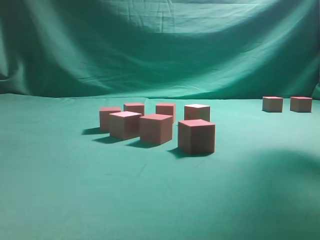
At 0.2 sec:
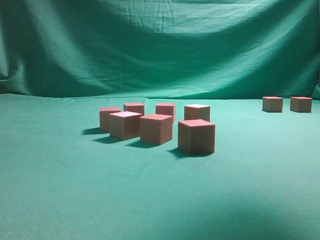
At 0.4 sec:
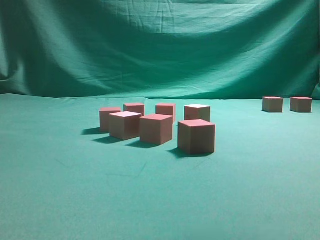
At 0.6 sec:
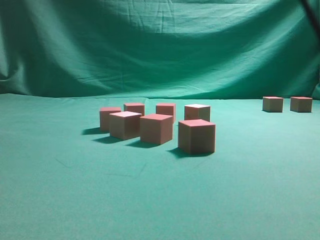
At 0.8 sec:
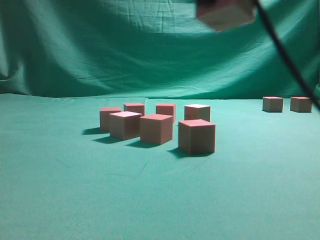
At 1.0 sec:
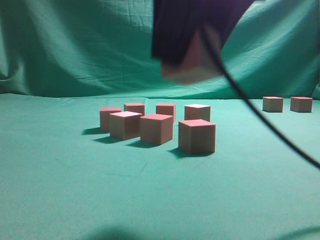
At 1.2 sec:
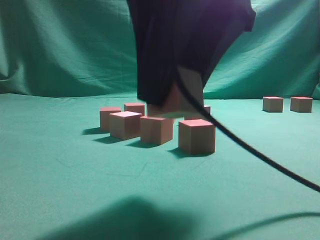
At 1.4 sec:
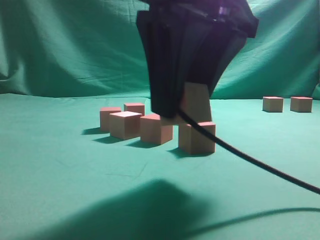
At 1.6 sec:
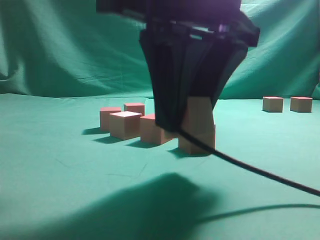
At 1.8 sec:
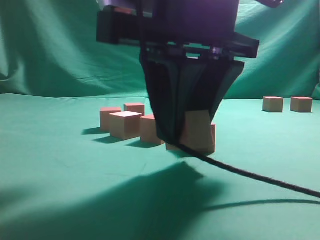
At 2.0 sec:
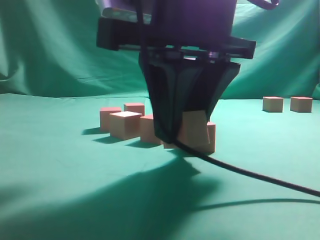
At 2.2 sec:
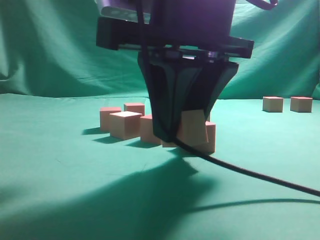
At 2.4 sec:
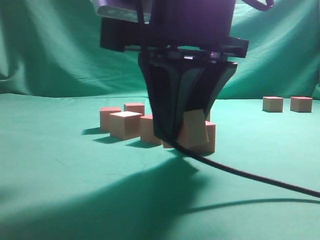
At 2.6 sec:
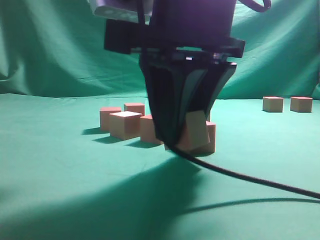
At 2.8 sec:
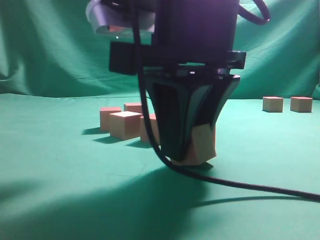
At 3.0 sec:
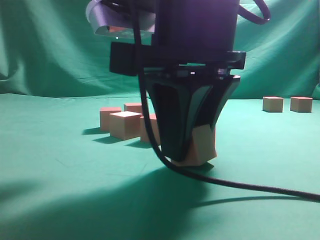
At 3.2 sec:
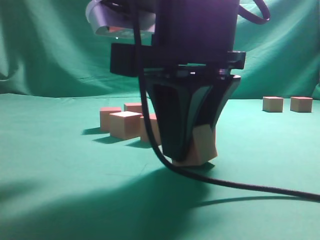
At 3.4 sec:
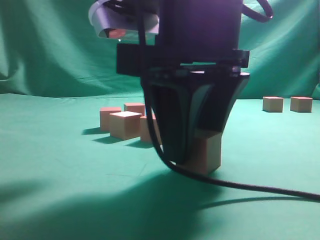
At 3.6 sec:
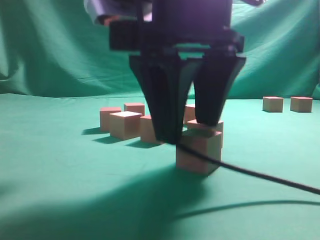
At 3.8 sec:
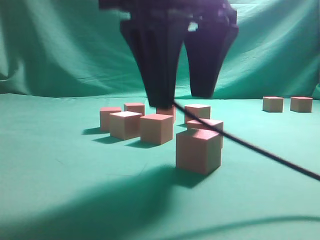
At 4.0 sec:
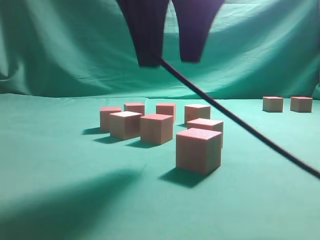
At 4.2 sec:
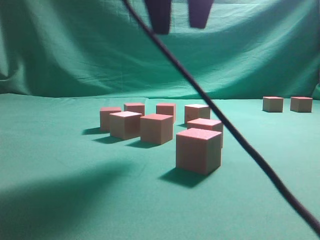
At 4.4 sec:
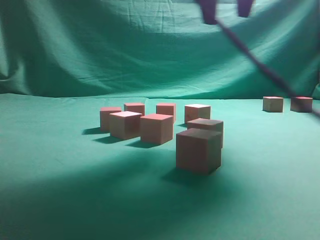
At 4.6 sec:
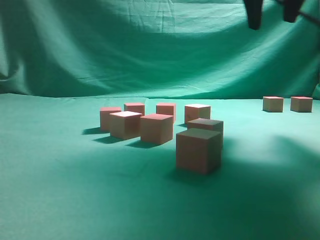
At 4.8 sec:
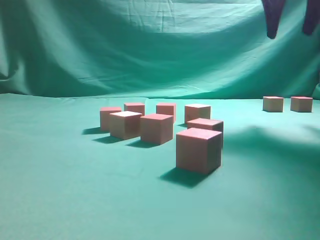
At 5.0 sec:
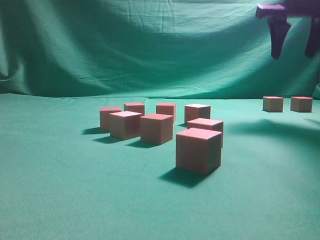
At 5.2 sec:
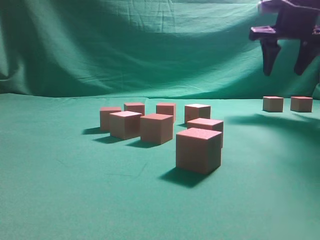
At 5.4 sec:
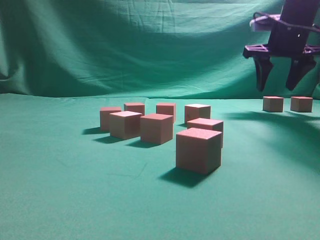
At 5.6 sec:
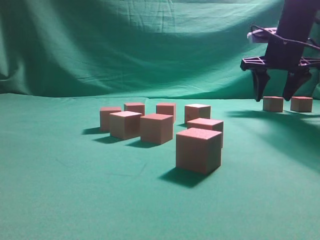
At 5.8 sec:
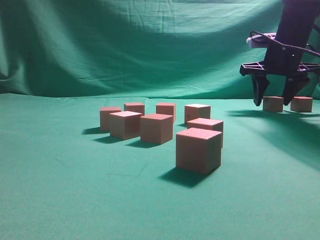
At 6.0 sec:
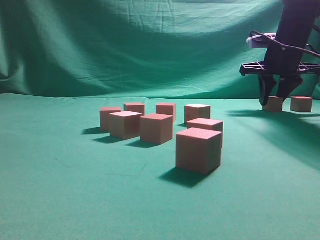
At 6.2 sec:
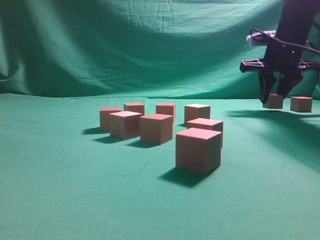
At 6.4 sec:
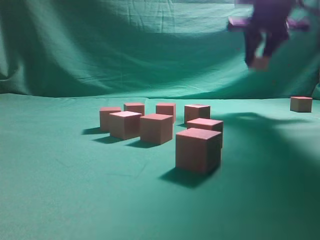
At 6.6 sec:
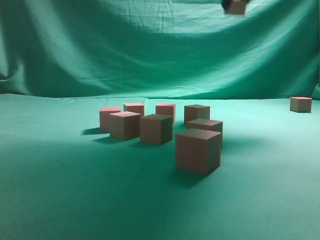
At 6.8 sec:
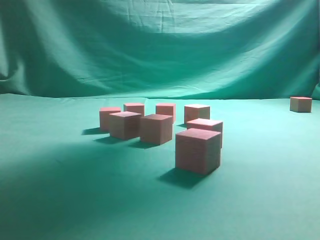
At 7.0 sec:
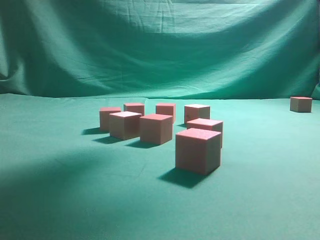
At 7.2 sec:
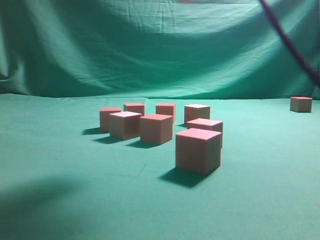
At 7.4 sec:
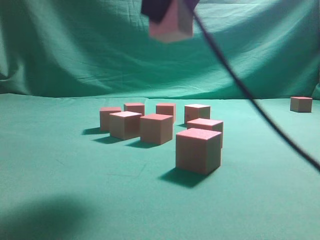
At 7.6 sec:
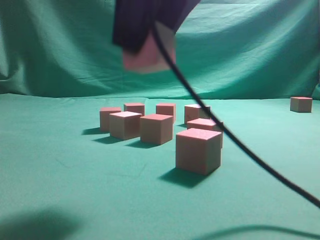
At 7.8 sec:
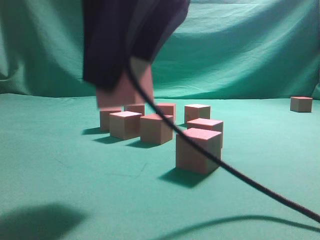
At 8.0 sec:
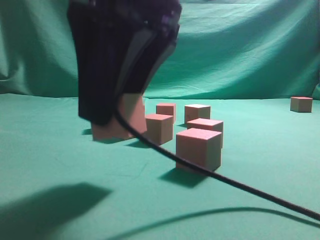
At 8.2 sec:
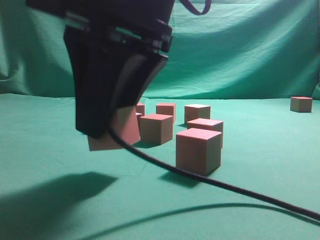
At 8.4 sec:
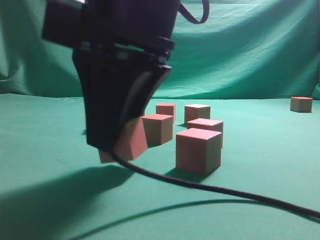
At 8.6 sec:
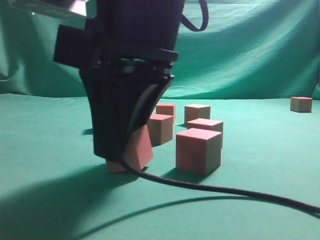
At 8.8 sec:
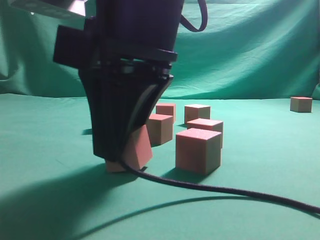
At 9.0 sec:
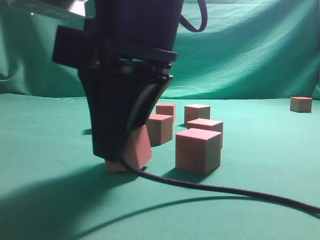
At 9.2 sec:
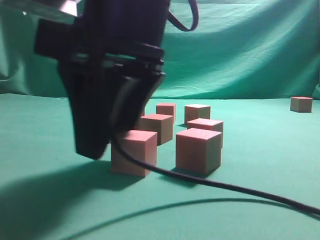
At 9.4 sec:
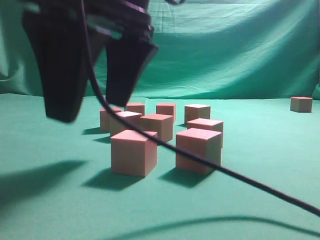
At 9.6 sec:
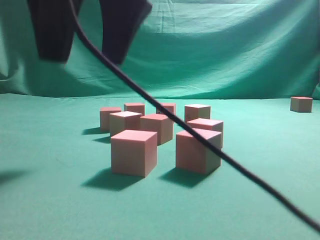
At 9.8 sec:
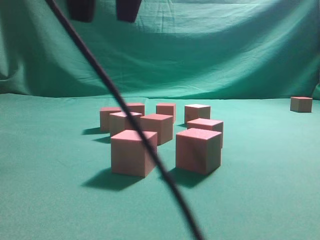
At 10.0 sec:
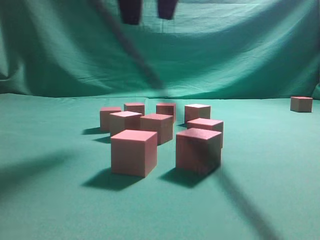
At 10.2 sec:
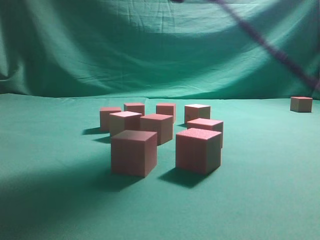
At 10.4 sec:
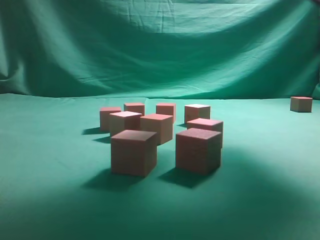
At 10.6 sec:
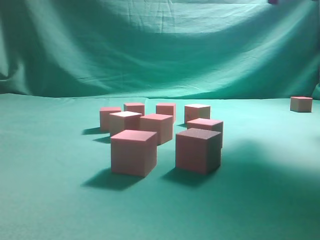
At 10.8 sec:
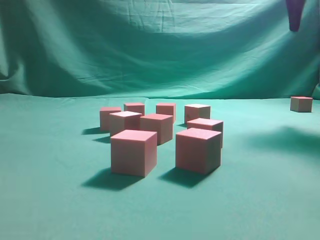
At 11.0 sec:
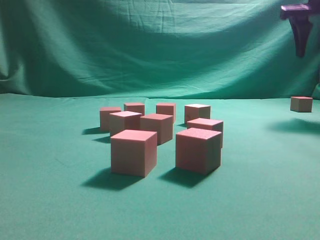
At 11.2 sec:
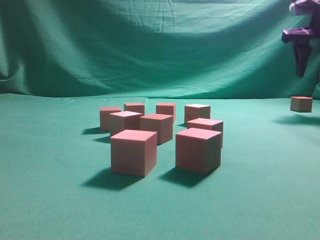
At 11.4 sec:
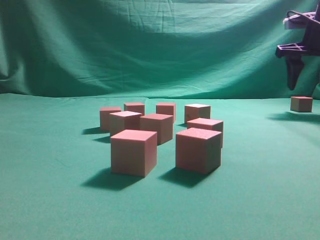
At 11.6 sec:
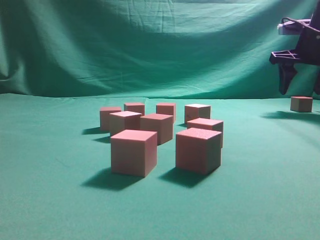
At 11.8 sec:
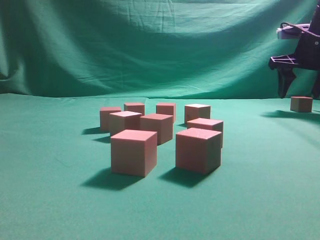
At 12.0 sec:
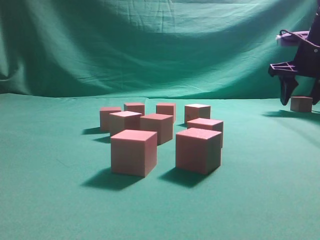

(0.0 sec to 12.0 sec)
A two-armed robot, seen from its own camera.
Task of the whole recording: pick up the multiple cubes in two columns one by one and place them in another position on the table.
Step, 0.0 sec - 3.8 sec: Place the block at the correct position to assemble the letter S.
Step, 4.0 sec - 6.2 sec: Pick up the block on the table.
Step, 6.4 sec - 9.4 sec: Place the block at the correct position to assemble the letter S.
0.0 sec - 1.6 sec: The right gripper shifts some 30 cm downward, to the left and backward.
3.0 sec - 4.4 sec: The right gripper moves upward, forward and to the right, approximately 20 cm.
4.4 sec - 6.0 sec: The right gripper goes roughly 25 cm forward, downward and to the right.
6.0 sec - 7.6 sec: The right gripper moves backward and to the left, approximately 40 cm.
7.6 sec - 9.0 sec: The right gripper travels downward by roughly 10 cm.
9.0 sec - 10.4 sec: The right gripper goes roughly 30 cm upward, to the right and forward, and opens up.
10.4 sec - 12.0 sec: The right gripper shifts about 30 cm downward, forward and to the right.

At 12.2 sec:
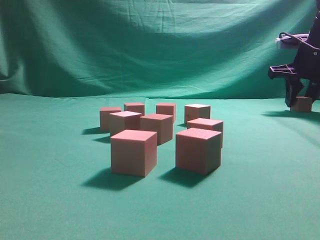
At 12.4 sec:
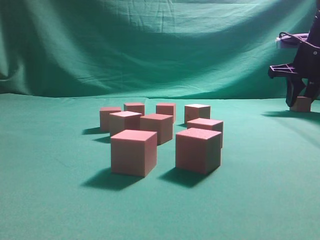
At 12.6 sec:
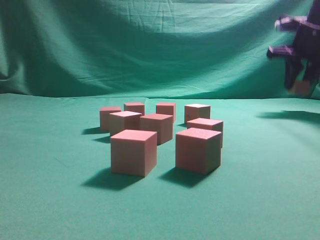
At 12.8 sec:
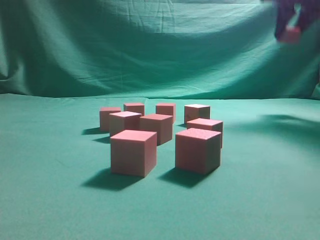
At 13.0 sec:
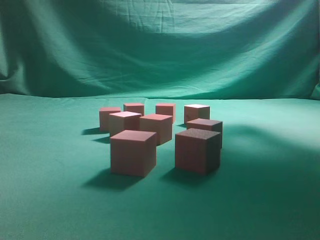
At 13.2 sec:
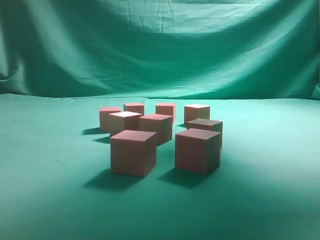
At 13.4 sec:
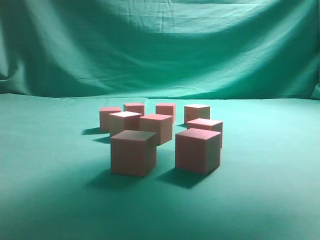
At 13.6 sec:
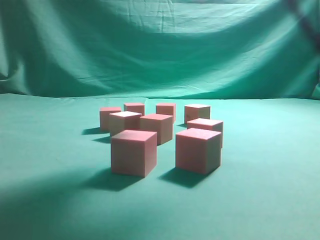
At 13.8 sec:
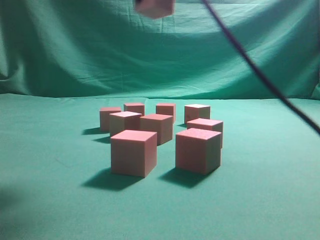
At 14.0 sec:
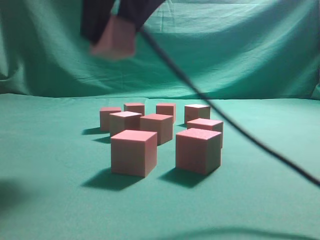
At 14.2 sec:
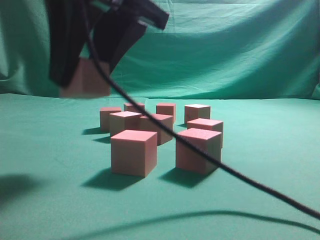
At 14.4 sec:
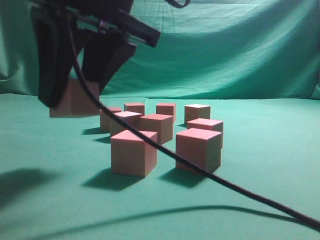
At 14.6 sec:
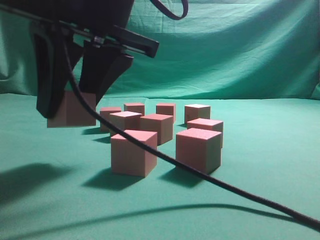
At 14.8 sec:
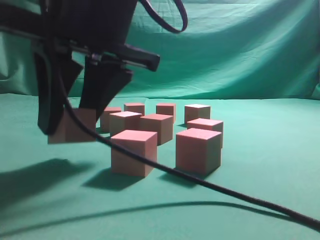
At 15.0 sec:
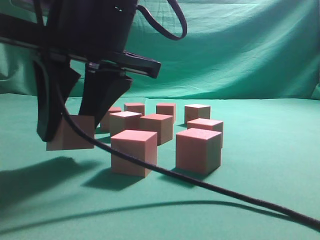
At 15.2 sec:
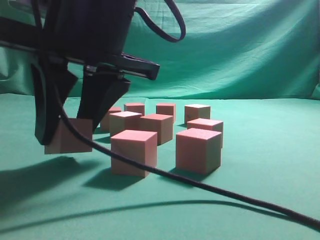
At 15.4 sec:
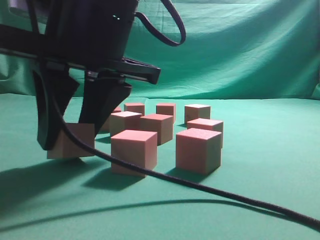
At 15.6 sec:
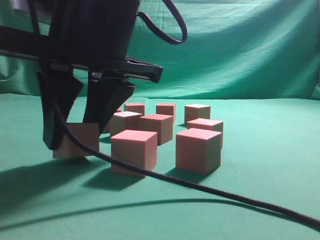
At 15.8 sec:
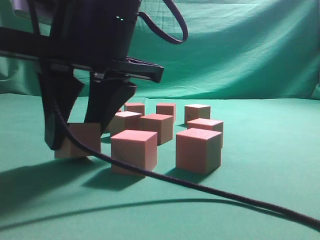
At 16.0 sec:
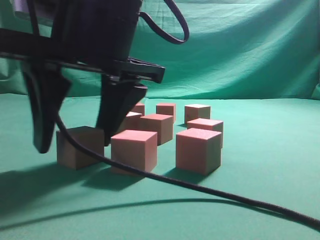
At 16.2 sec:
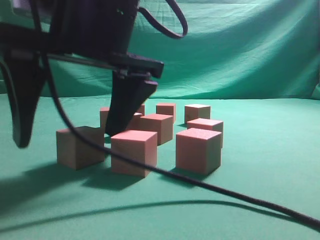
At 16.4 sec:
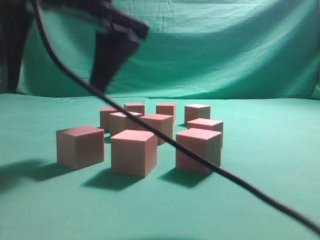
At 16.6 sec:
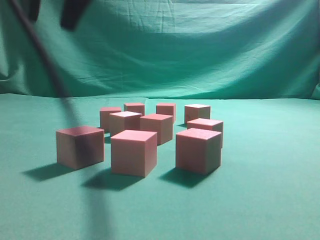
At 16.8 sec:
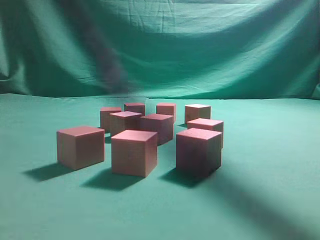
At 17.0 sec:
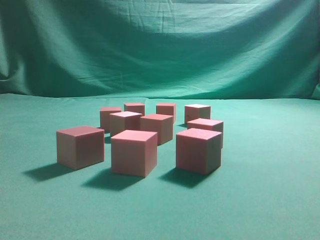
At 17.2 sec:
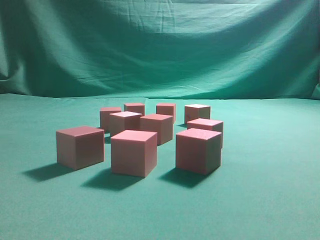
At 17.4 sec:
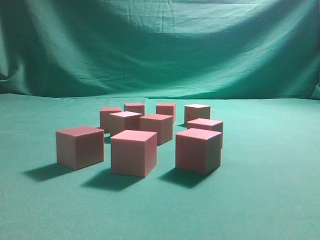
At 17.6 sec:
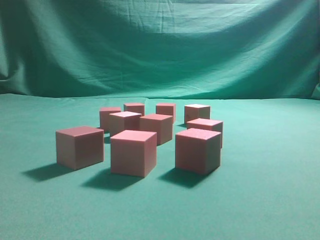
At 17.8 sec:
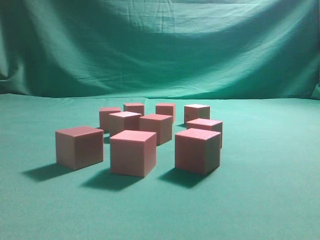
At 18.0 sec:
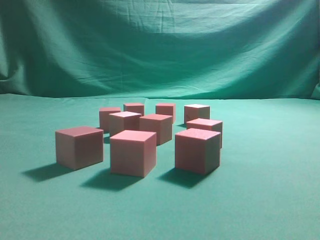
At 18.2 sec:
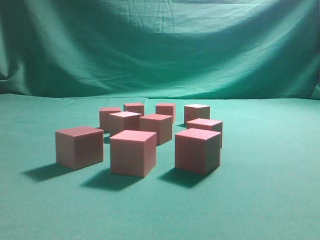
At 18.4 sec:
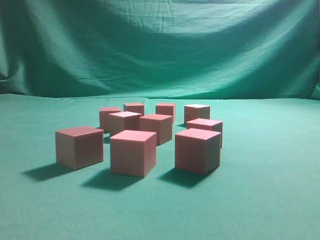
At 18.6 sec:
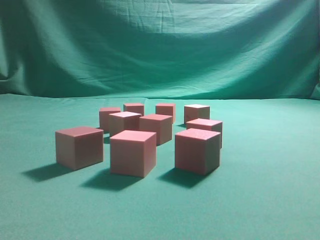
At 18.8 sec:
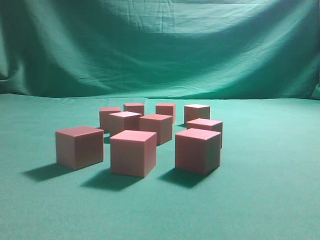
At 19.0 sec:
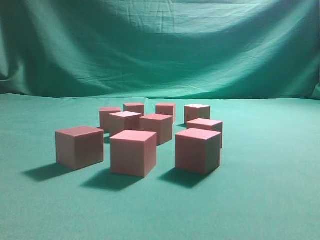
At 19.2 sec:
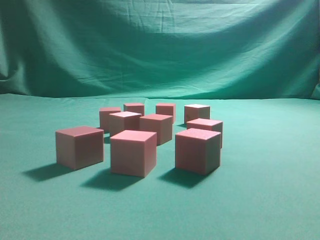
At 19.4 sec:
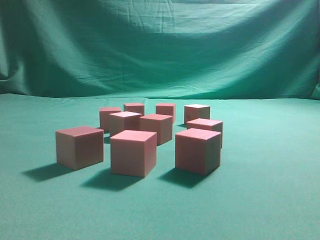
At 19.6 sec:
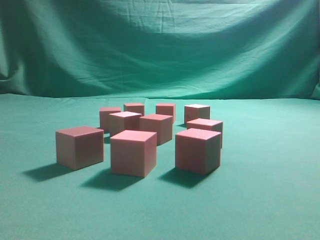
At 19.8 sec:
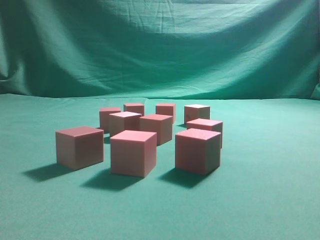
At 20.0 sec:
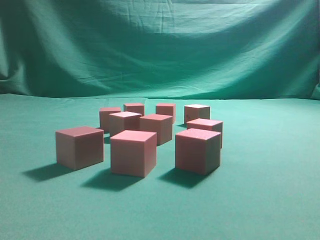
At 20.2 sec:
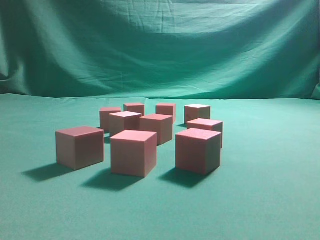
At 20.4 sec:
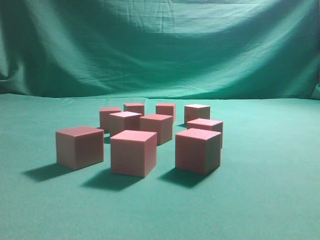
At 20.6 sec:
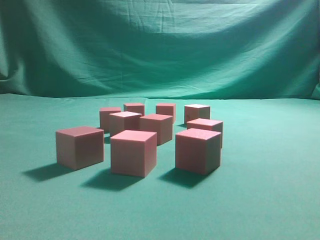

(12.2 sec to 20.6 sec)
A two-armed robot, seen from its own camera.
Task of the whole recording: pick up the multiple cubes in two columns one by one and place them in another position on the table.
Step, 12.8 sec - 16.4 sec: Place the block at the correct position to assemble the letter S.
12.2 sec - 13.6 sec: The right gripper travels backward, to the left and upward by some 35 cm.
13.6 sec - 15.0 sec: The right gripper moves downward, to the left and backward, roughly 20 cm.
15.0 sec - 16.4 sec: The right gripper opens its fingers.
16.4 sec - 17.8 sec: The right gripper heads to the right, upward and backward, covering some 40 cm, and closes up.
